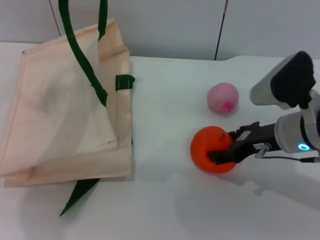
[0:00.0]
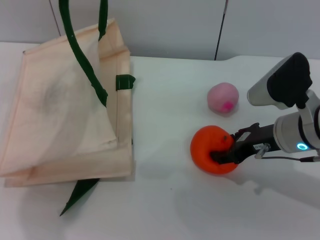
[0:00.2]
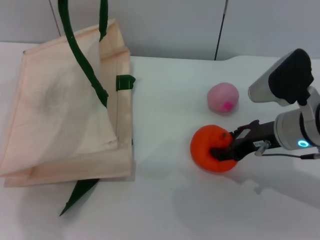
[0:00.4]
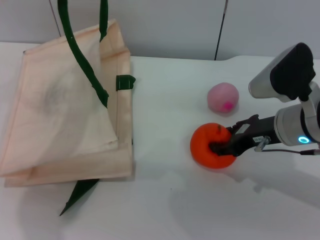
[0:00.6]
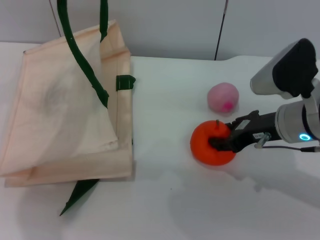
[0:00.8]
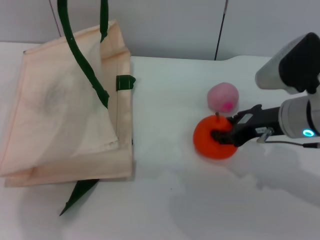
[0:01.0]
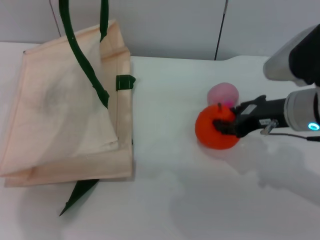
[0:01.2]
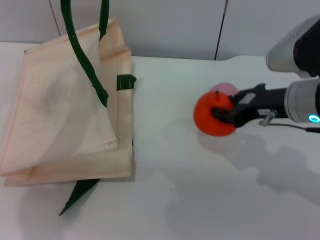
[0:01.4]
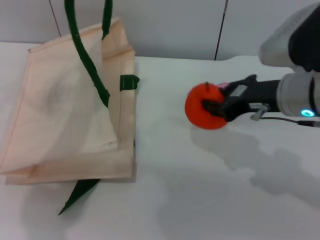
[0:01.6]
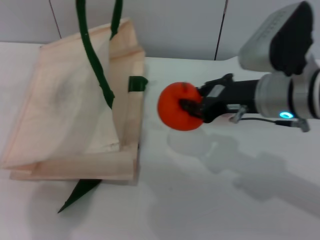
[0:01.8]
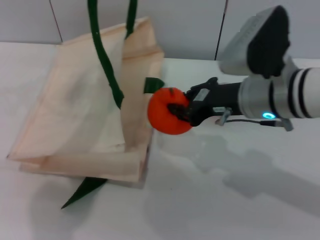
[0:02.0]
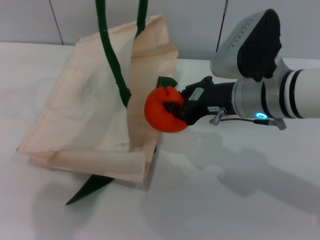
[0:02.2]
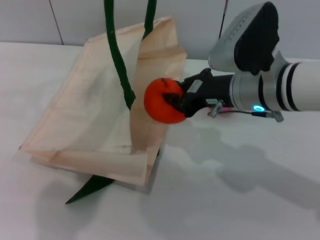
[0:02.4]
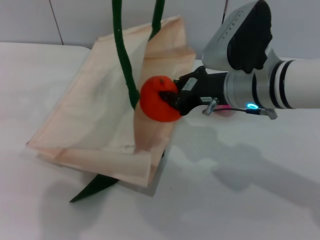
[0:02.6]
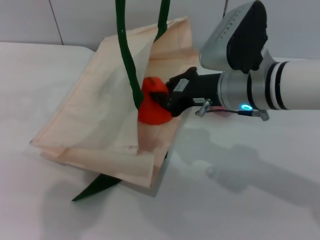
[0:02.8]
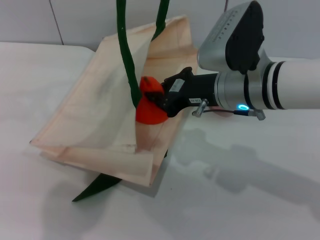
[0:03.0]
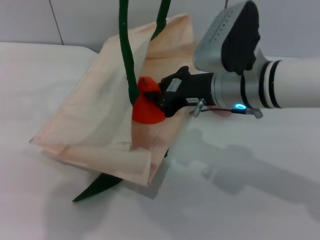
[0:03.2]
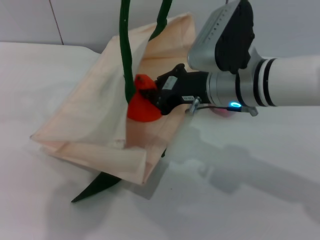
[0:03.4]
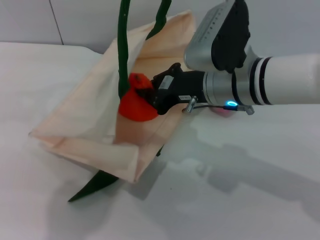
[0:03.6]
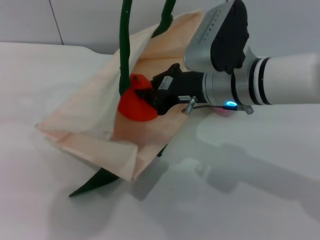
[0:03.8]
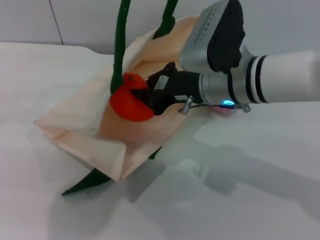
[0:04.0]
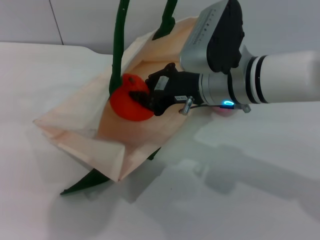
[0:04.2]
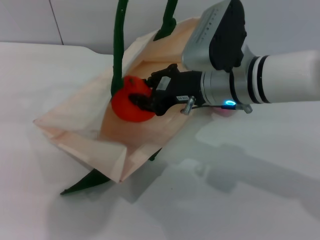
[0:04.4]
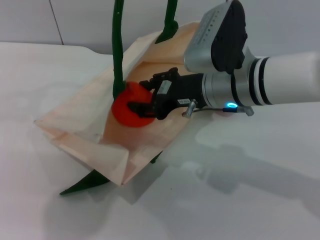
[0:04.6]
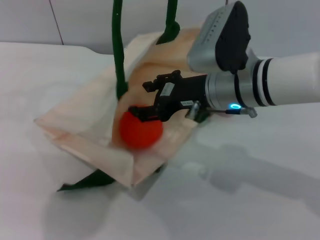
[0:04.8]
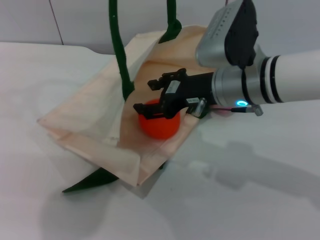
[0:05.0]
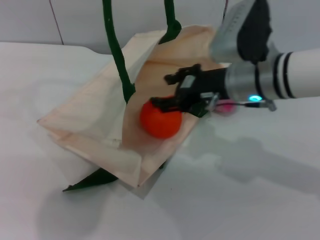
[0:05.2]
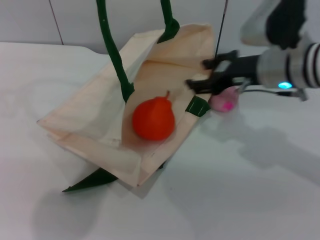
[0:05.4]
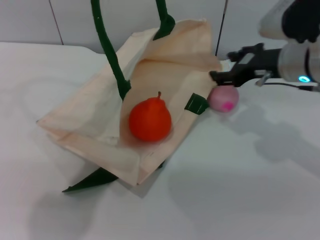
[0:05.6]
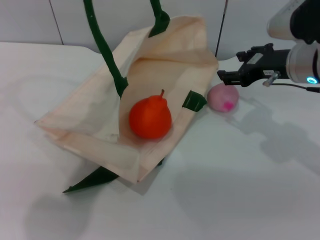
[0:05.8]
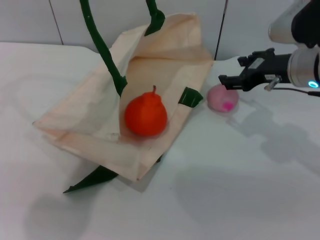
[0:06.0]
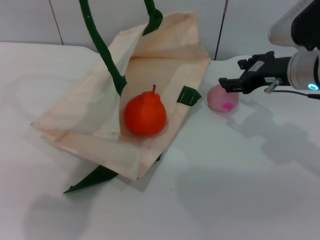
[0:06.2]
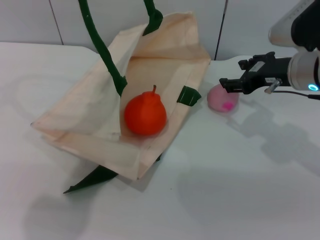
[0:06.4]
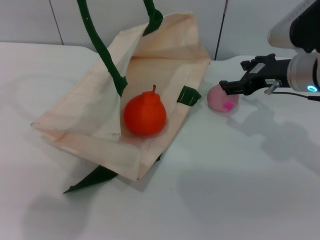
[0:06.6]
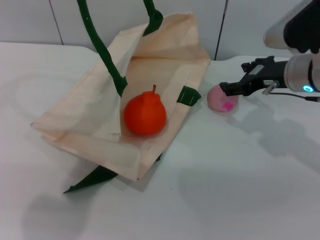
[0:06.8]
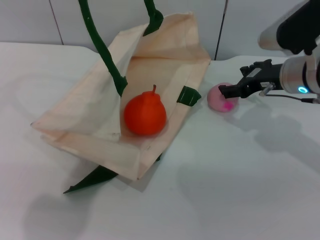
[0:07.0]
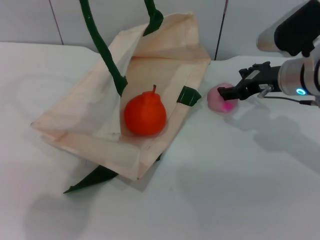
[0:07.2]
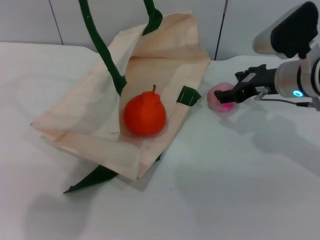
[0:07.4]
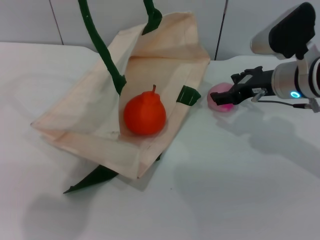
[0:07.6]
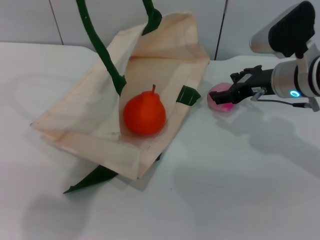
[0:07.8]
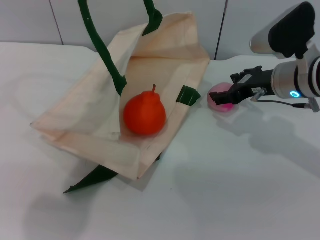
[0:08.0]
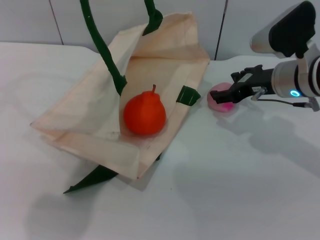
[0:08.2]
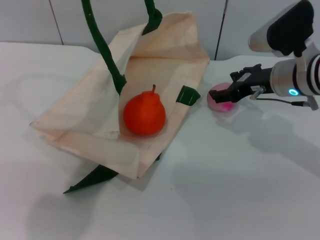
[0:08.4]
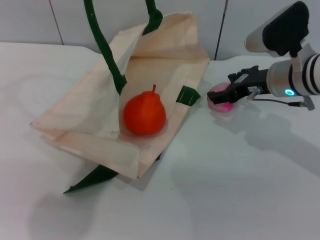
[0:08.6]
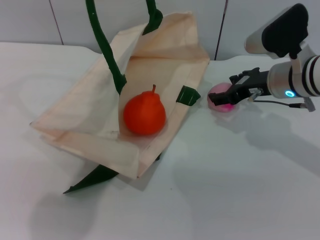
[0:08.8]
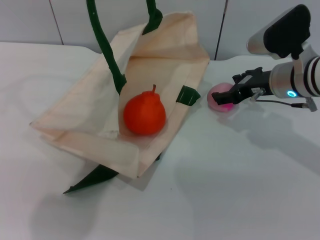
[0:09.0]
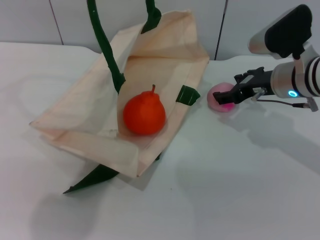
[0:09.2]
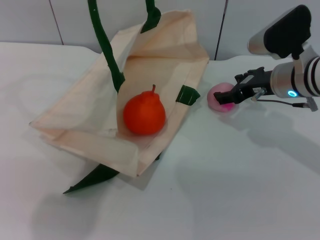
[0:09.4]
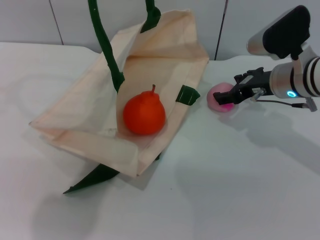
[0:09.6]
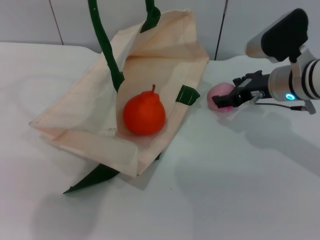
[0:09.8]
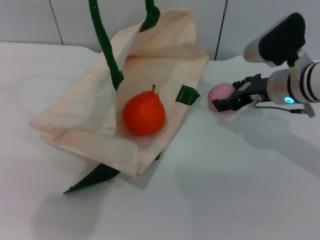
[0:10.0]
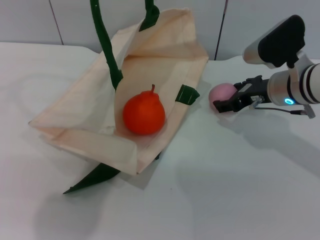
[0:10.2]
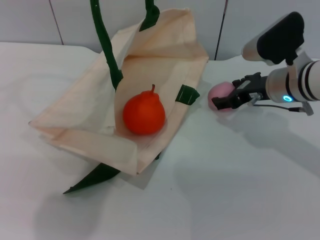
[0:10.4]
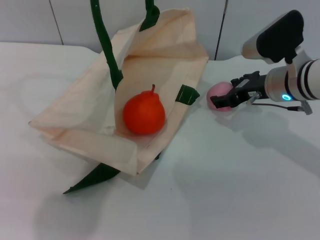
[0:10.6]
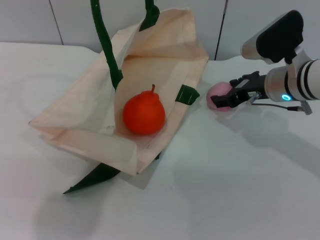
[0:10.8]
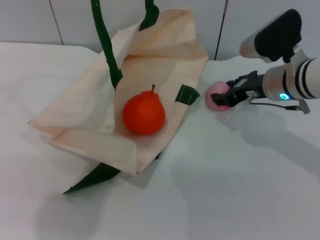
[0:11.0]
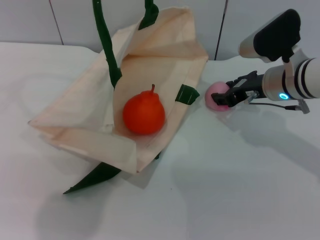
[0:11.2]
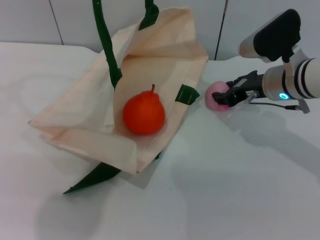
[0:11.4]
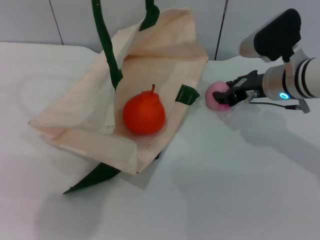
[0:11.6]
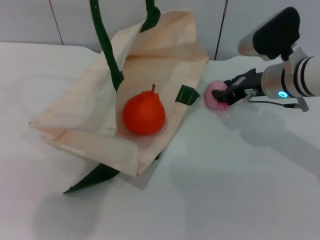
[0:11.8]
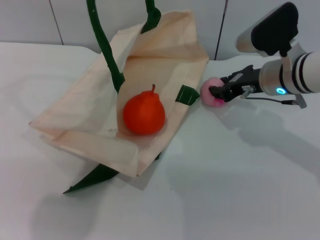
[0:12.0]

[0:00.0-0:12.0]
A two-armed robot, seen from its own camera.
Task of the whole recording: pick up the orange and peach from the table and place it in the white handbag.
Step, 0:01.8 to 0:05.6: Place the orange into the woven bag with the right gripper.
0:00.0 to 0:01.6: The right gripper is displaced upward by about 5 cm, and closes its fingers.
0:01.6 to 0:03.0: The right gripper travels to the left by approximately 5 cm. The left gripper moves to the right, approximately 5 cm.
0:04.4 to 0:06.0: The right gripper heads to the right, covering approximately 10 cm, and opens its fingers.
0:06.0 to 0:07.6: There are only small adjustments of the grippers.
0:07.6 to 0:09.0: Neither gripper changes place.
0:09.0 to 0:10.4: Both grippers stay about where they are.
0:10.4 to 0:12.0: The right gripper closes its fingers.

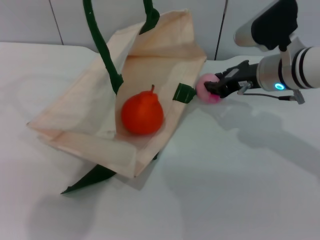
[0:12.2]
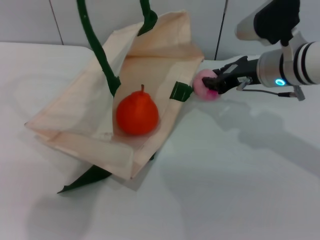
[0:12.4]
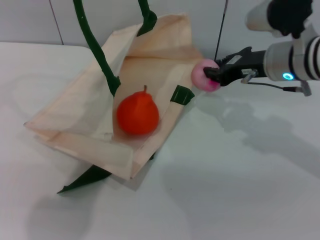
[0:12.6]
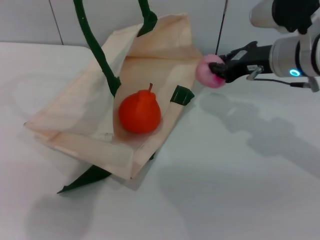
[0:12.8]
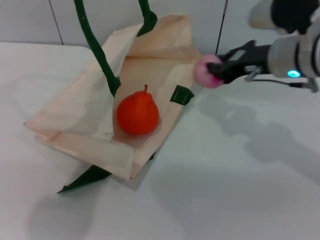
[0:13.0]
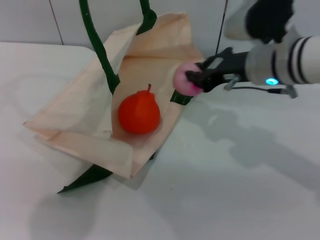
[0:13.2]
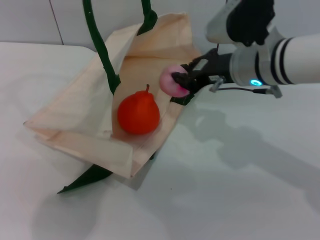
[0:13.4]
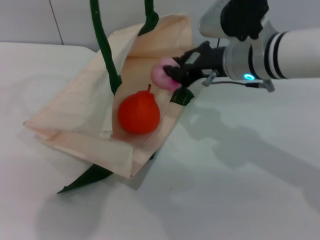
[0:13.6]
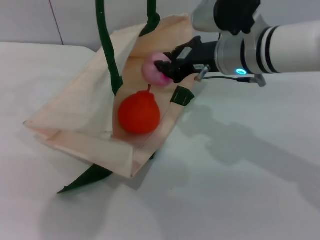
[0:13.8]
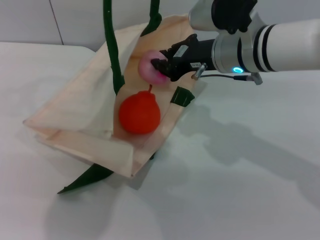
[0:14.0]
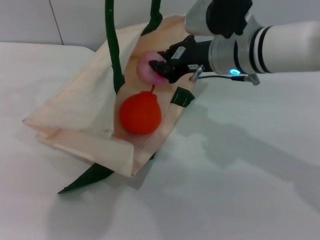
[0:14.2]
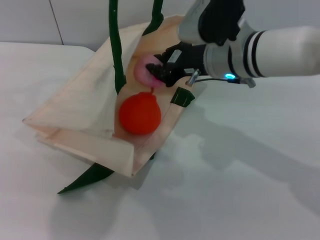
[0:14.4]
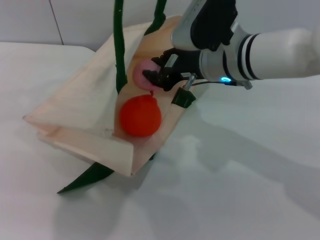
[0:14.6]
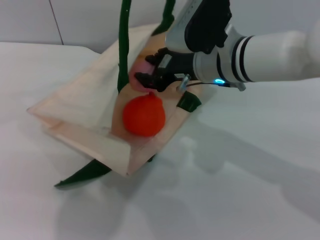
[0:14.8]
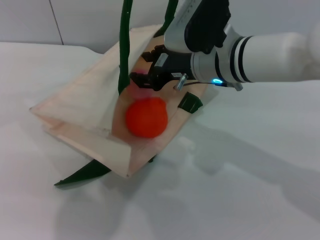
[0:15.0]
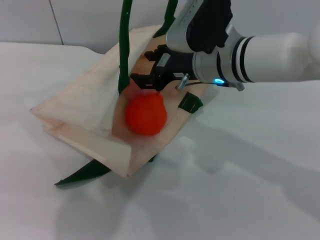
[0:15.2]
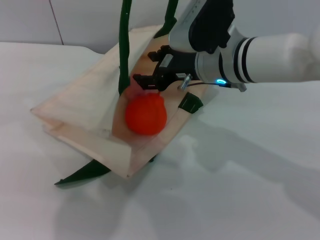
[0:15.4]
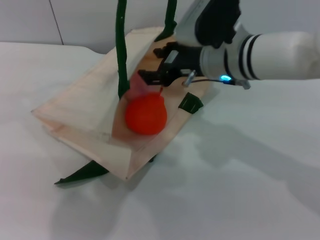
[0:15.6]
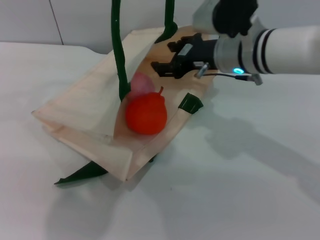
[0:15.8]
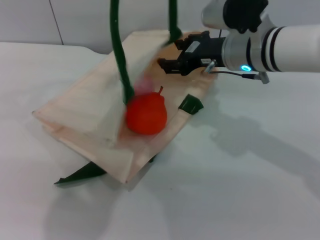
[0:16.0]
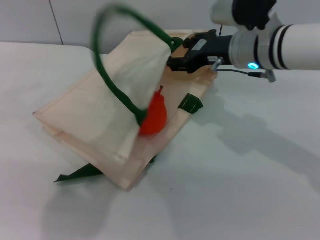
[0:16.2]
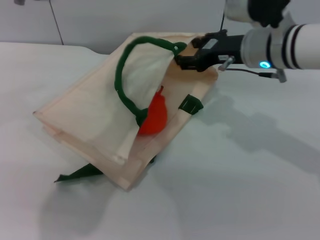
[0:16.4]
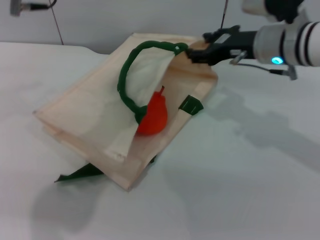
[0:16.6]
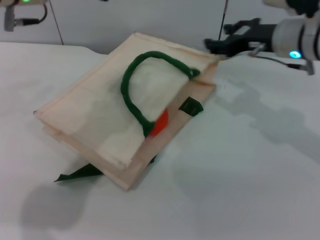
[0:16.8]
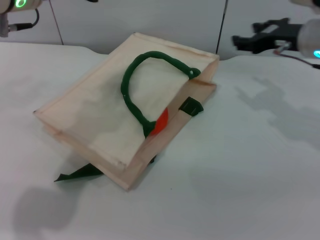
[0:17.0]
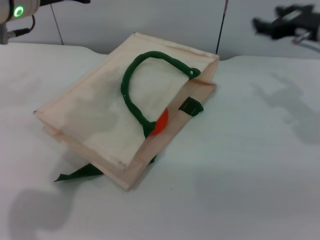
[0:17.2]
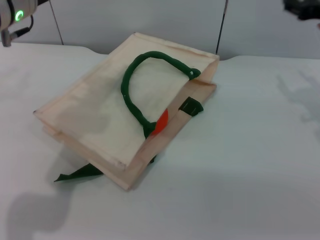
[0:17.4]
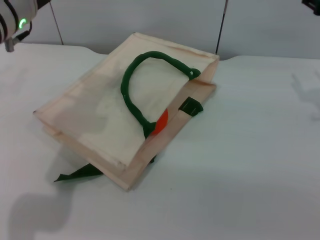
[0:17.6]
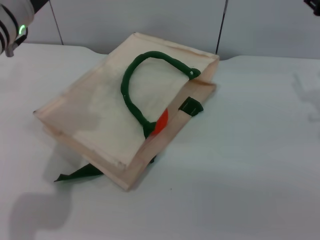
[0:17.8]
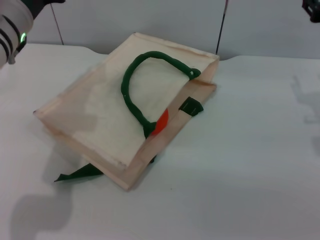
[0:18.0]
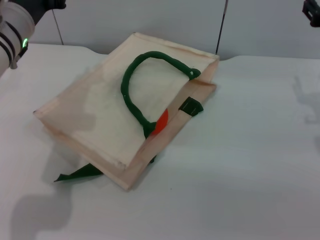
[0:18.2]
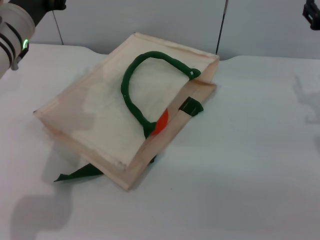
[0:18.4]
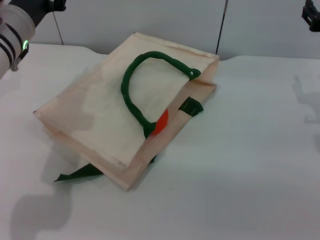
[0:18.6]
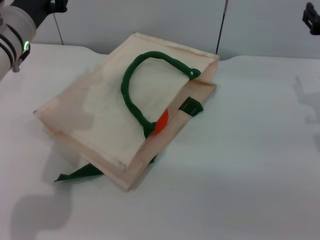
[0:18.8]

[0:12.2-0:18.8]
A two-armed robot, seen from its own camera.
Task of the whole recording: pick up the orange and peach from the table and place it in the white handbag.
Step, 0:12.8 to 0:16.6: Place the peach into the woven bag with the right gripper.
Step, 0:17.0 to 0:17.6: Lower the woven bag with the left gripper to close it.
0:12.2 to 0:13.8: The right gripper goes roughly 5 cm to the left.
0:13.8 to 0:15.4: The right gripper opens.
0:15.4 to 0:17.2: The right gripper travels to the right by approximately 15 cm; the left gripper shifts about 15 cm downward and to the left, and opens.
0:17.2 to 0:18.8: The left gripper travels downward by some 10 cm.
